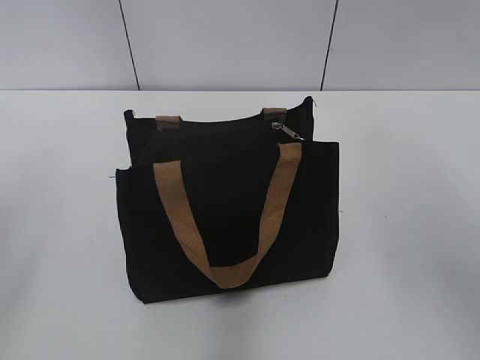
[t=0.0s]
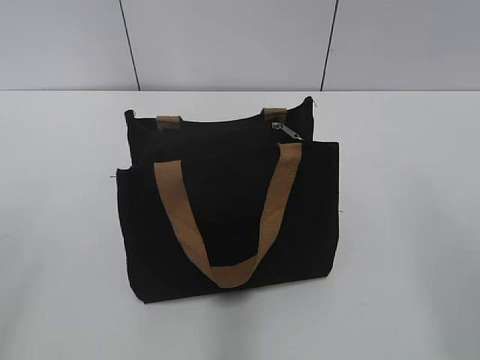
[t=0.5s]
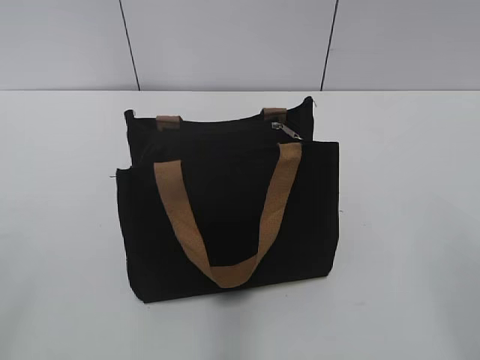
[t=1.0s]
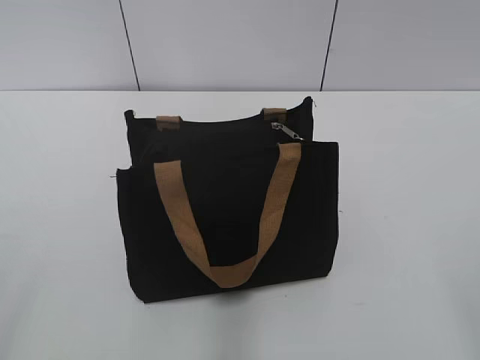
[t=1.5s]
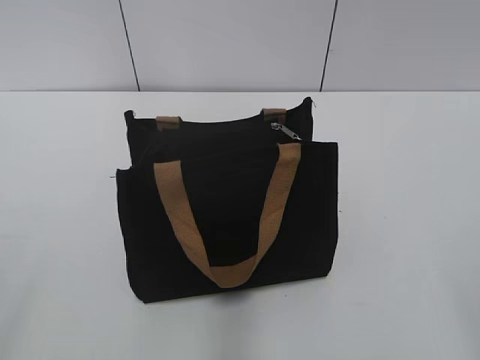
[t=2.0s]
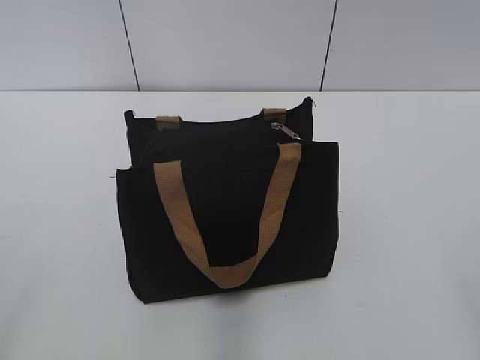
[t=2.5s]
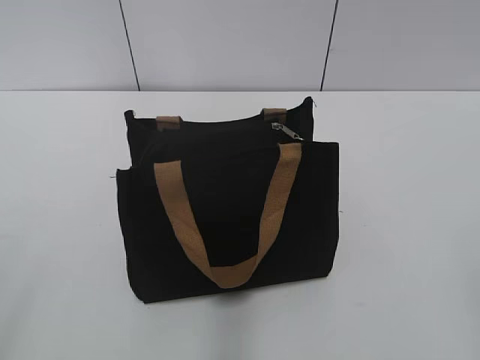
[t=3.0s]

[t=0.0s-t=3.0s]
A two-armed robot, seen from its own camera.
t=0.0s to t=1.5s: The right gripper is displaced backward and downward by roughly 25 cm.
